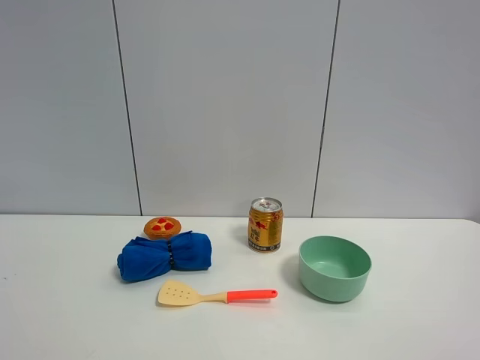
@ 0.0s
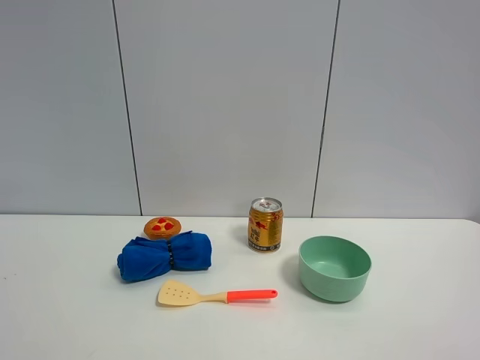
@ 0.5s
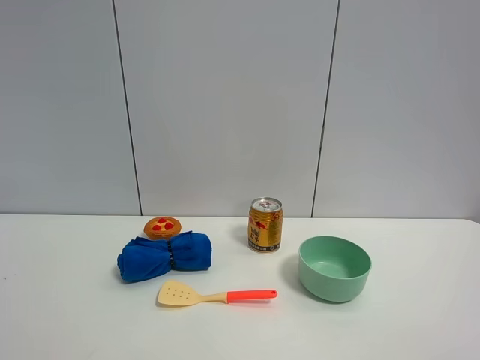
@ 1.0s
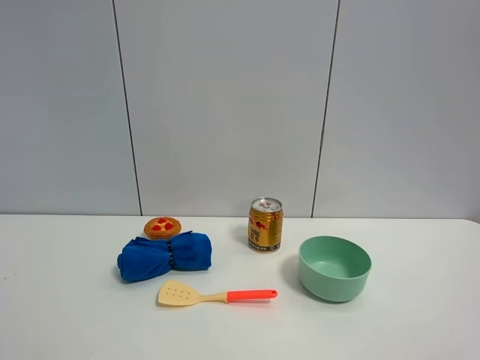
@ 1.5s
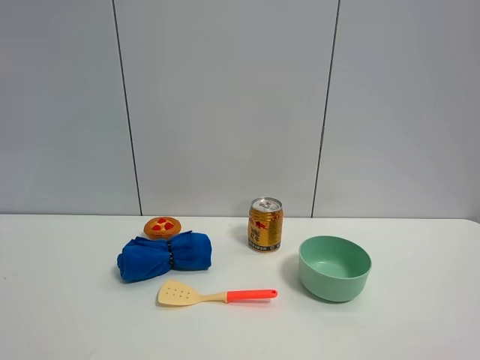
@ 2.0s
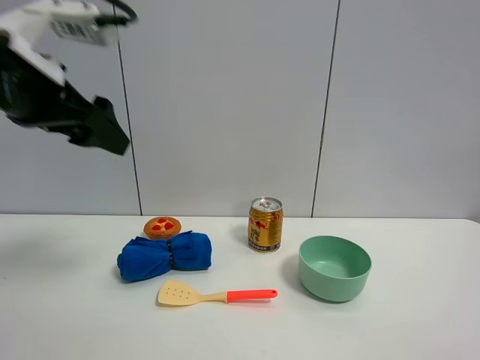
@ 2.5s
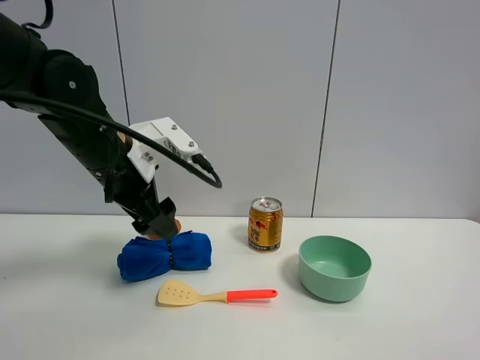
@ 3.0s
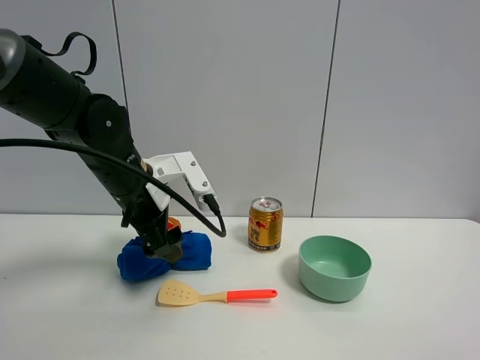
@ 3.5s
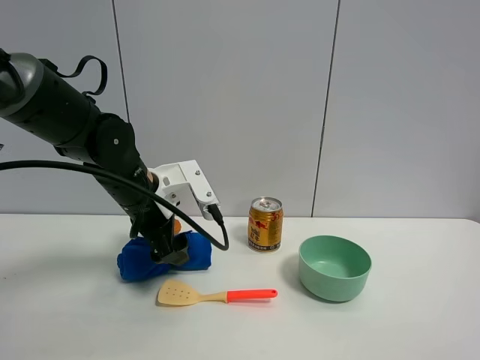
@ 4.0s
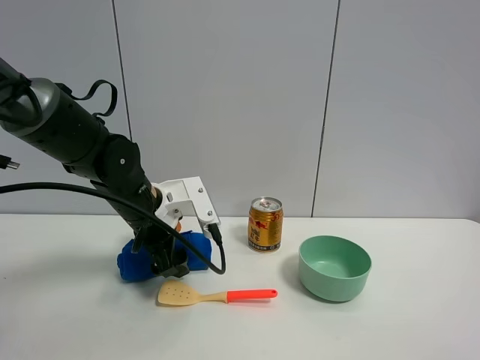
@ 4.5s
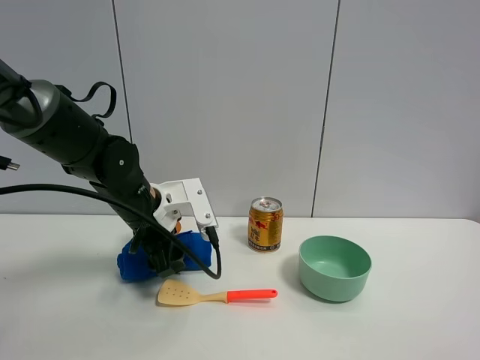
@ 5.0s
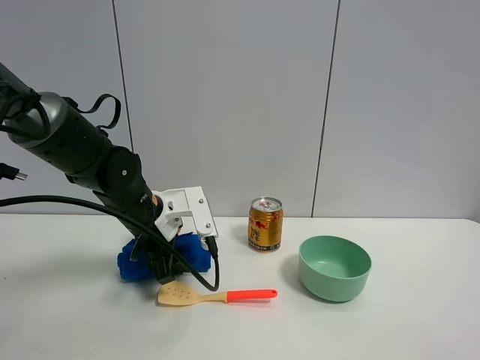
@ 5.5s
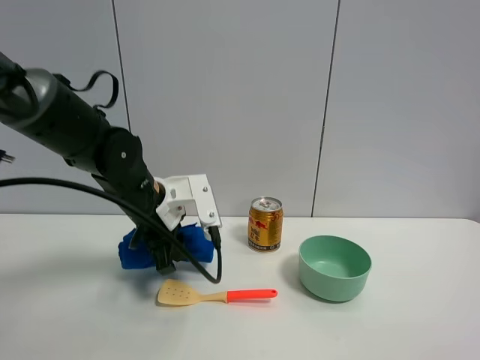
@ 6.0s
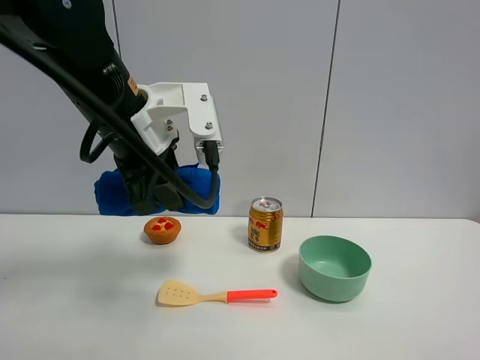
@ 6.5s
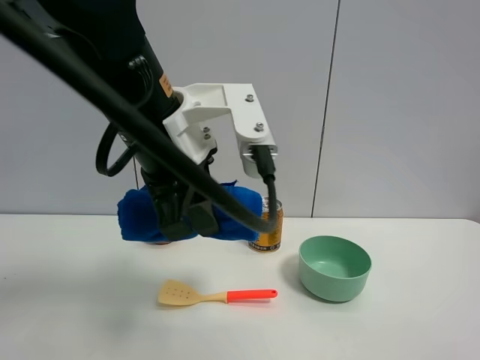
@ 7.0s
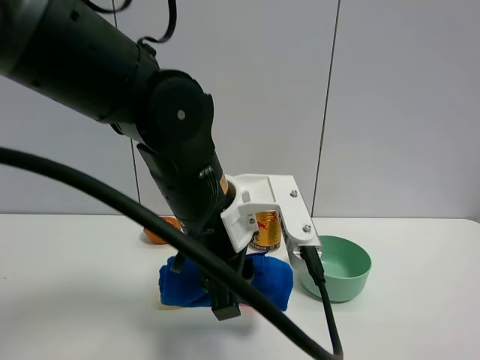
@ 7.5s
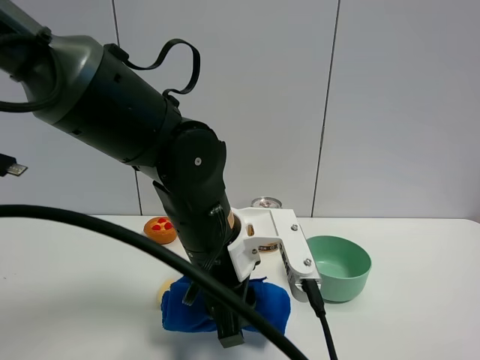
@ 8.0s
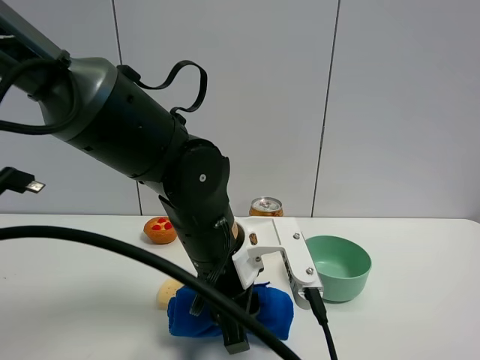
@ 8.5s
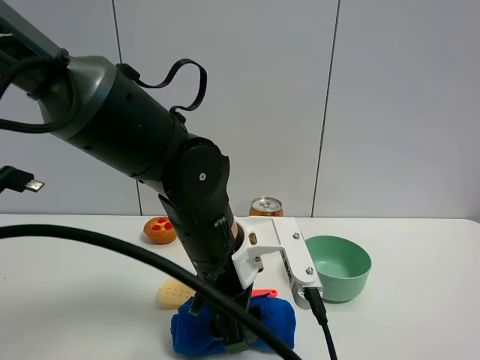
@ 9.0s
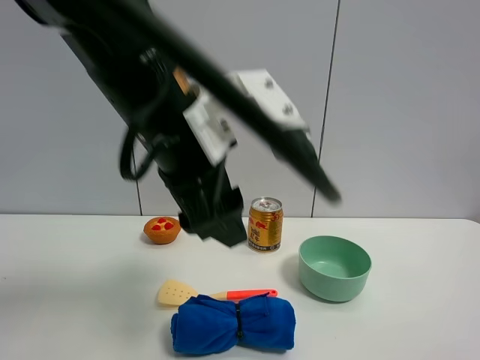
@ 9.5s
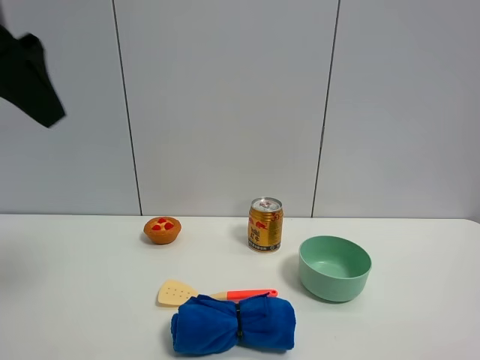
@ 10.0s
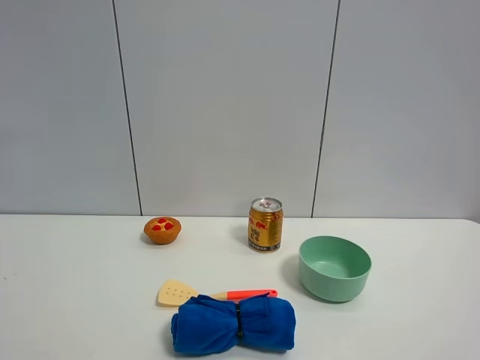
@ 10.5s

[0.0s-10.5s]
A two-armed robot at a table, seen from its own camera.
Task of the whole recording: the gripper move the object.
Step, 0.0s to 5.5s: Grasp the blue towel with the left gripper.
Step, 6.0s to 8.5s: Place the blue towel on the table with the left gripper.
2.0s to 4.0s: The left gripper travels downward, forward and to the right by about 40 cm.
4.0s to 6.5s: The left gripper goes some 15 cm upward and backward, and closes.
6.5s to 8.5s: The left gripper shifts some 15 cm downward and to the right.
8.5s to 10.5s: The left gripper heads to the left, upward and backward, covering some 40 cm, and opens up.

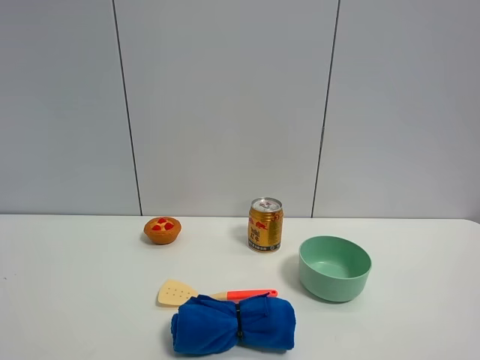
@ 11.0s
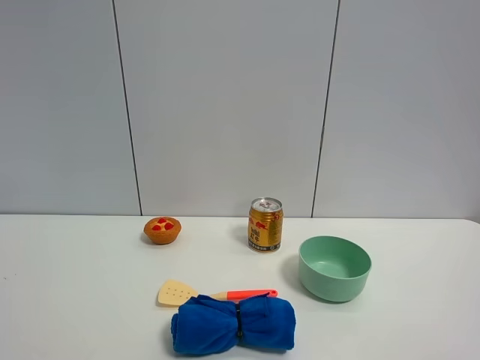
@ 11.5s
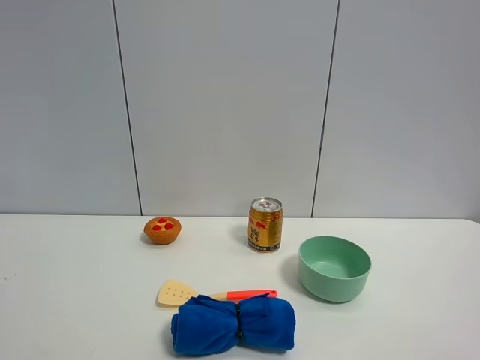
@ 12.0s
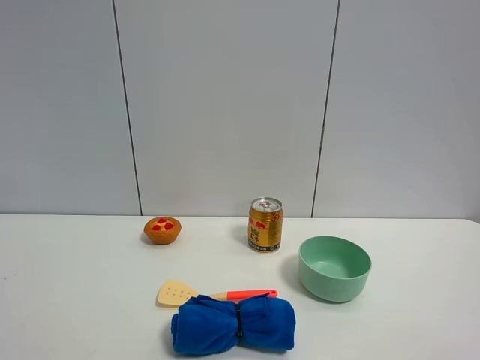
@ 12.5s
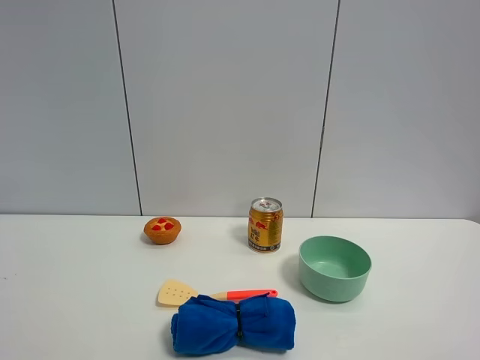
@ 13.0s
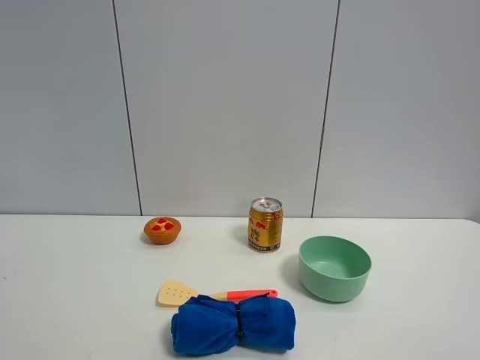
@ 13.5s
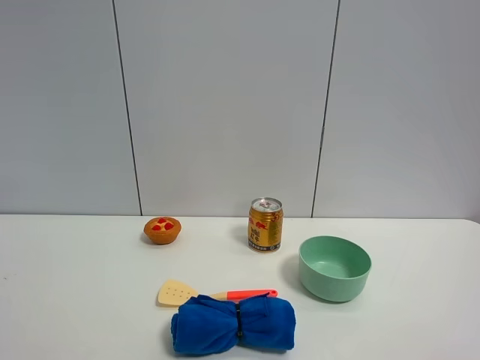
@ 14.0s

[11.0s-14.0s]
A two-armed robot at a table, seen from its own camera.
Task of the whole recording: the gripper move the object.
12.5s to 14.0s: Both grippers stay about where they are.

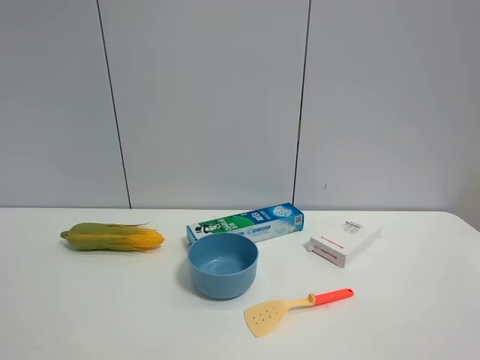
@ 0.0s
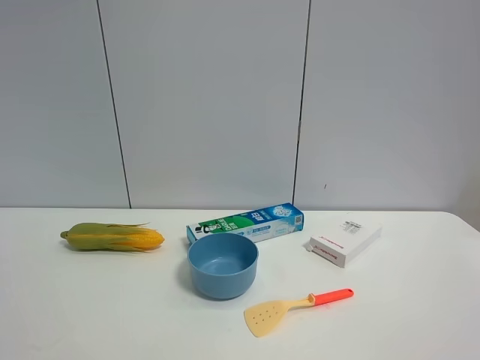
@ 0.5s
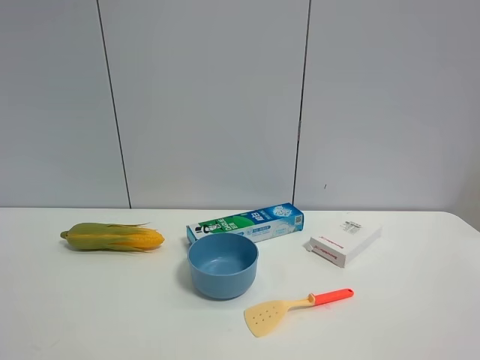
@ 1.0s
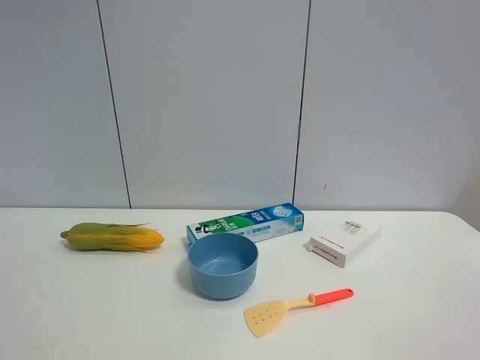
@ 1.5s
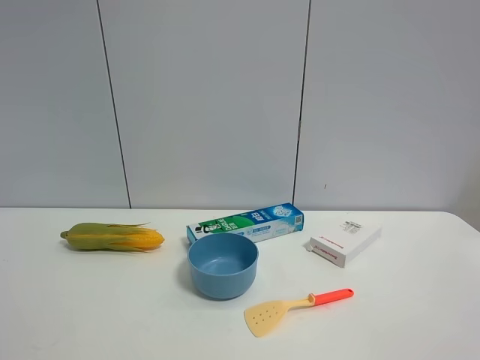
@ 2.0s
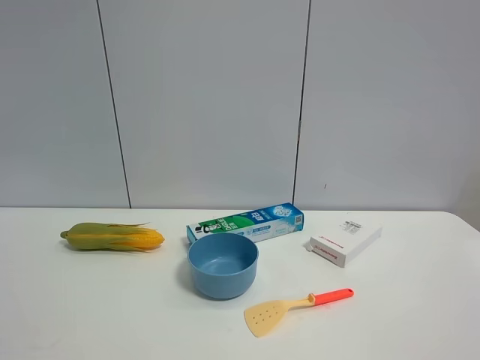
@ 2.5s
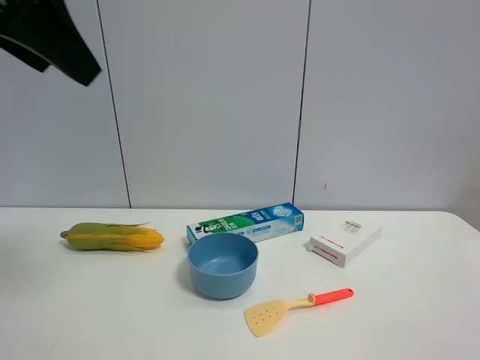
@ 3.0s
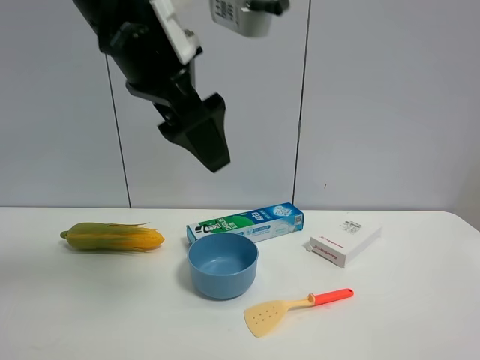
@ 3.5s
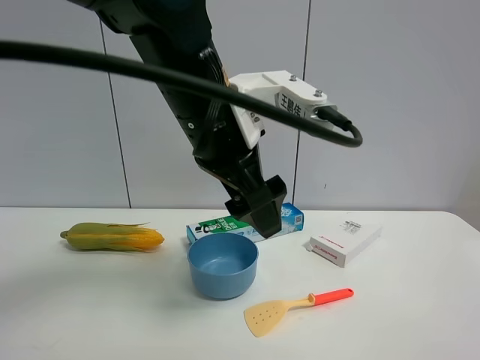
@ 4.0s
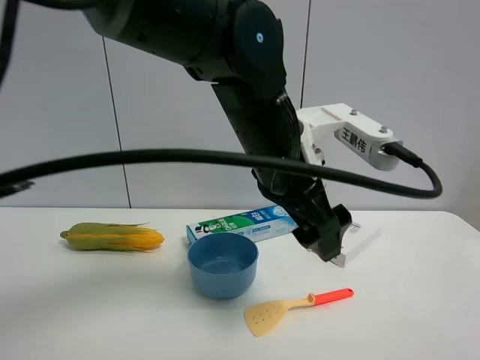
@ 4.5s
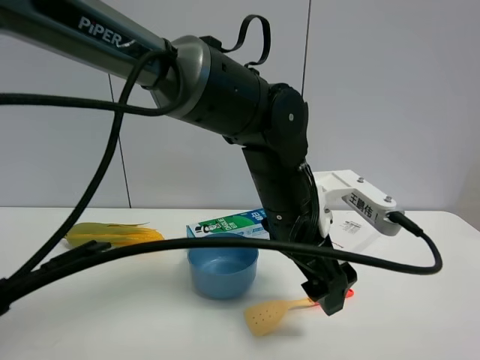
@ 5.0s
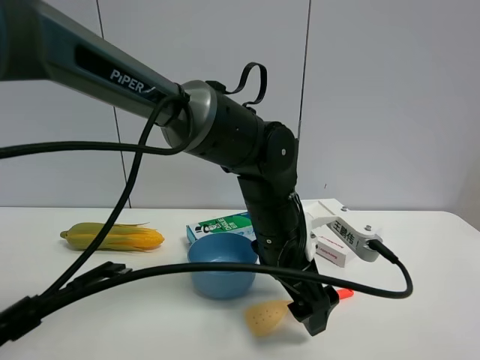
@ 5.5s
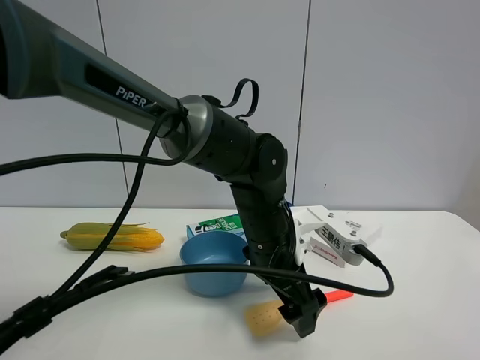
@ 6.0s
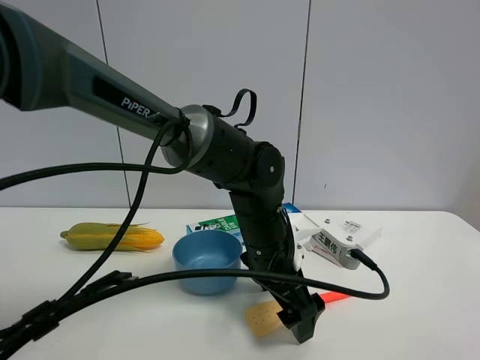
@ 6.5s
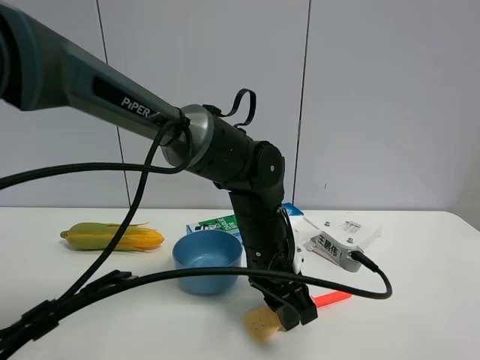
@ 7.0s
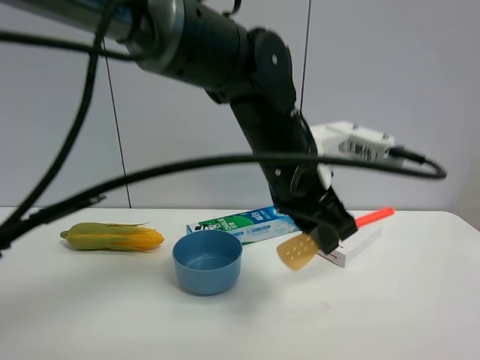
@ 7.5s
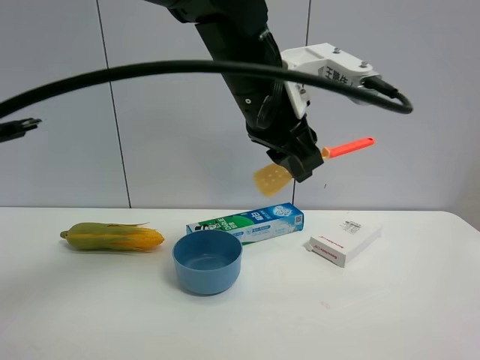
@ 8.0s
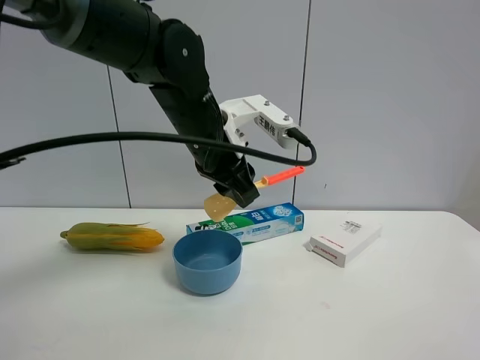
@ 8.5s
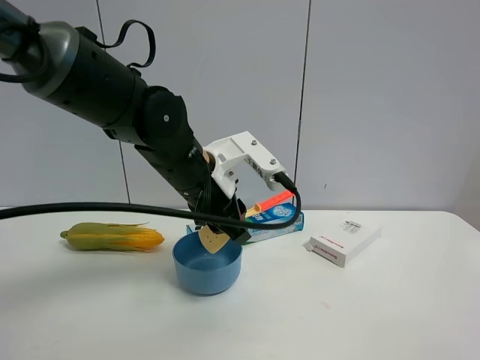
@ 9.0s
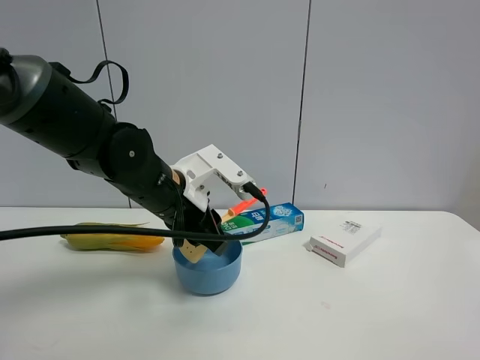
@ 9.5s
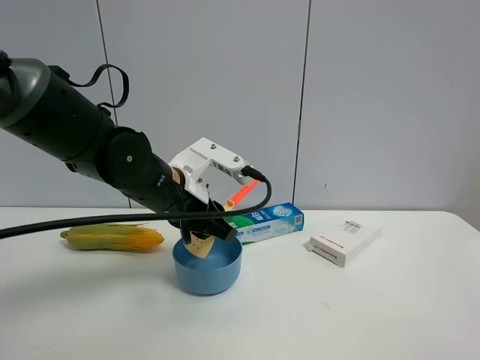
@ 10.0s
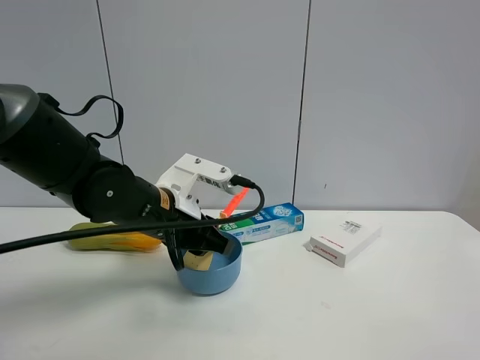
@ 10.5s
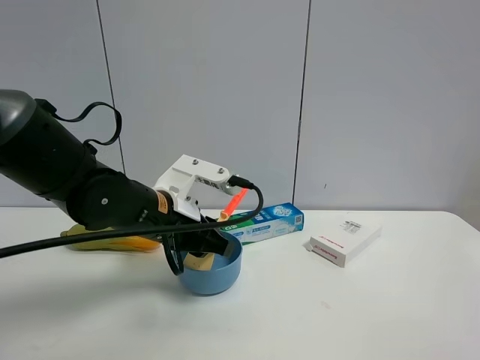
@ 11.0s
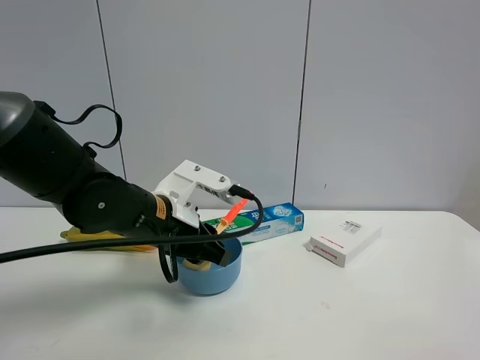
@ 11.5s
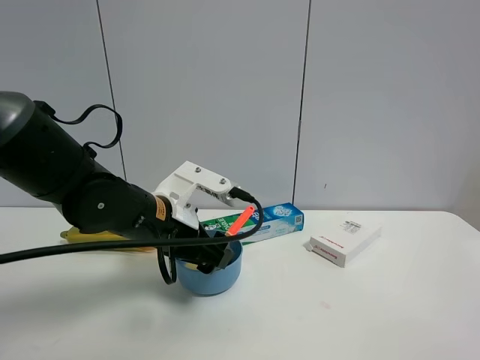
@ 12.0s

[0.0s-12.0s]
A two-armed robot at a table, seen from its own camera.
Task of the whole recording: the gripper move the object.
Step, 0.0s to 6.5s: Grasp the cooking shovel with the left gripper.
Step, 7.0s to 11.5s: Place the cooking shovel into the blue bowl with the left gripper.
2.0s to 4.0s: The left gripper goes roughly 35 cm to the right and forward.
4.0s to 6.0s: The left gripper moves downward and to the right, about 15 cm.
6.0s to 8.0s: The left gripper travels upward by some 15 cm, and closes.
8.0s to 10.0s: The left gripper is displaced downward and to the left by some 15 cm.
10.0s to 12.0s: The left gripper opens up.
